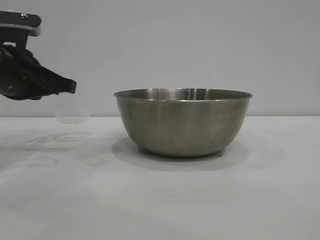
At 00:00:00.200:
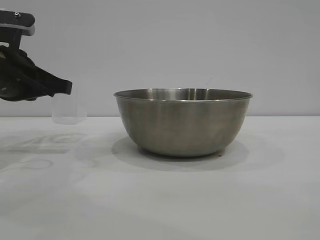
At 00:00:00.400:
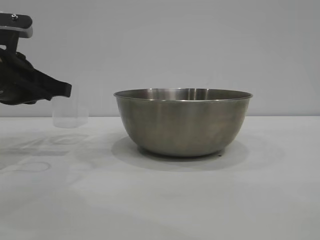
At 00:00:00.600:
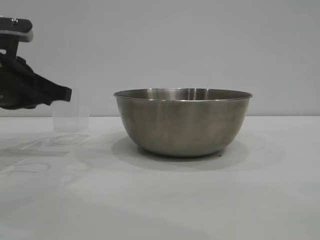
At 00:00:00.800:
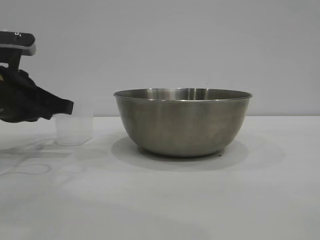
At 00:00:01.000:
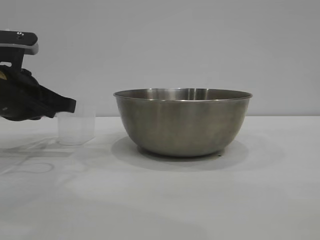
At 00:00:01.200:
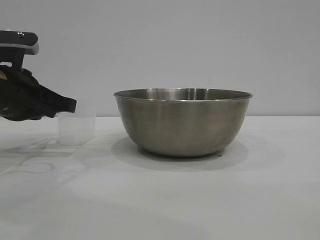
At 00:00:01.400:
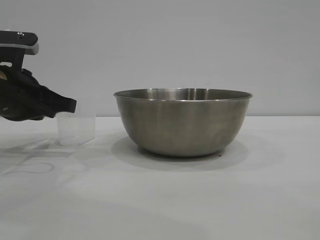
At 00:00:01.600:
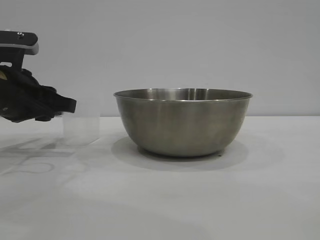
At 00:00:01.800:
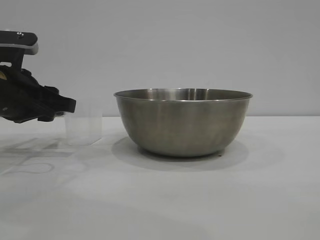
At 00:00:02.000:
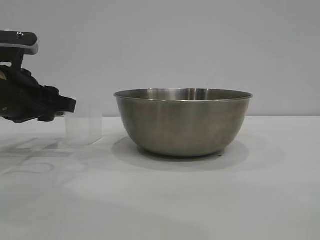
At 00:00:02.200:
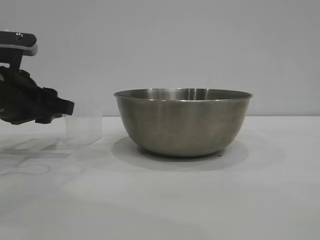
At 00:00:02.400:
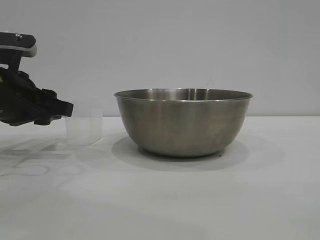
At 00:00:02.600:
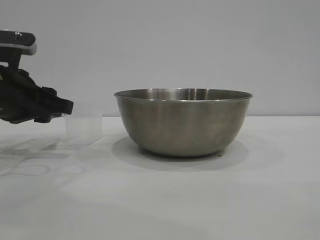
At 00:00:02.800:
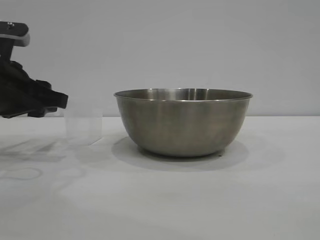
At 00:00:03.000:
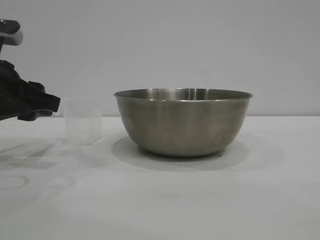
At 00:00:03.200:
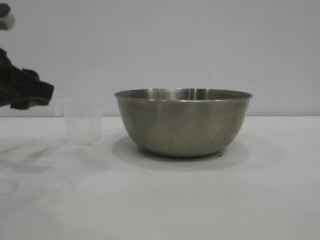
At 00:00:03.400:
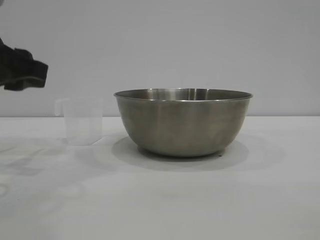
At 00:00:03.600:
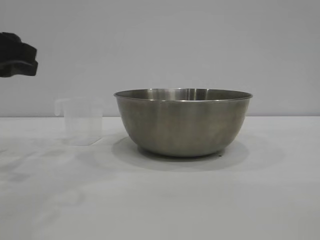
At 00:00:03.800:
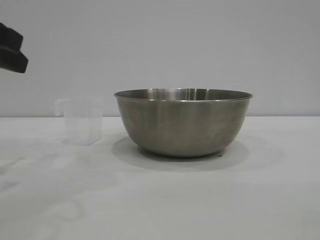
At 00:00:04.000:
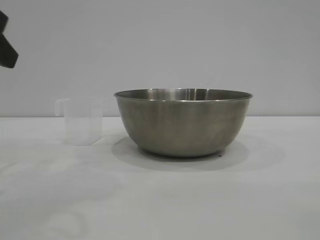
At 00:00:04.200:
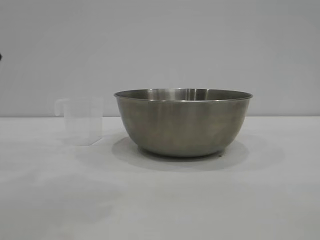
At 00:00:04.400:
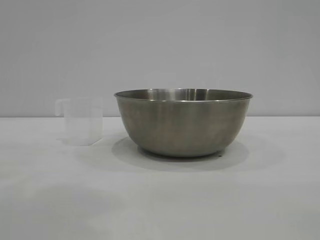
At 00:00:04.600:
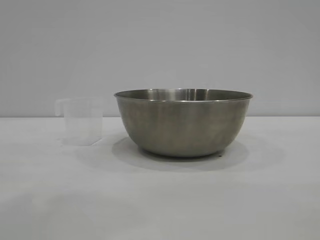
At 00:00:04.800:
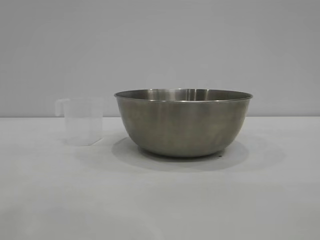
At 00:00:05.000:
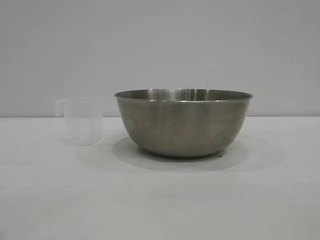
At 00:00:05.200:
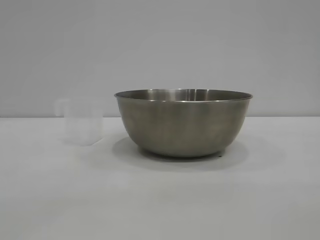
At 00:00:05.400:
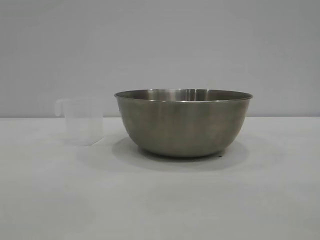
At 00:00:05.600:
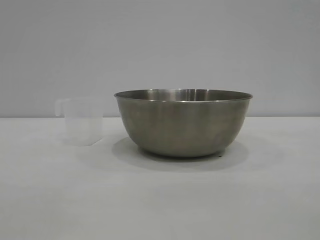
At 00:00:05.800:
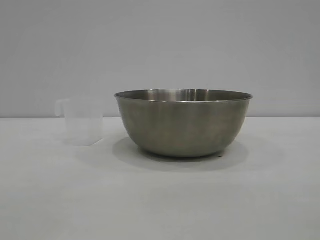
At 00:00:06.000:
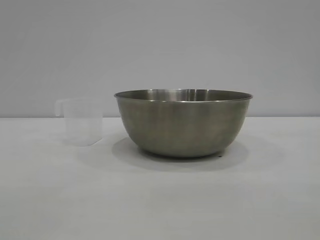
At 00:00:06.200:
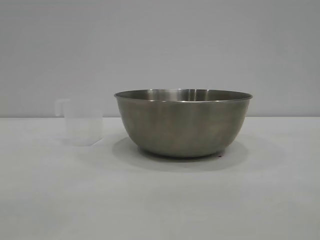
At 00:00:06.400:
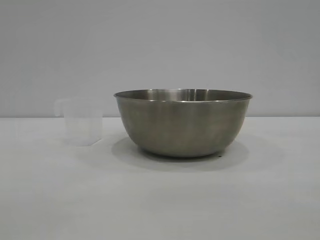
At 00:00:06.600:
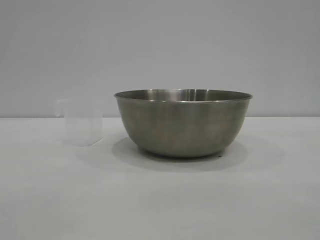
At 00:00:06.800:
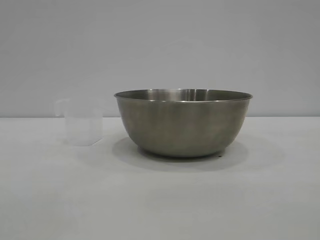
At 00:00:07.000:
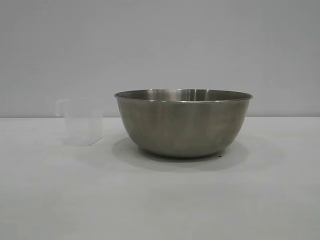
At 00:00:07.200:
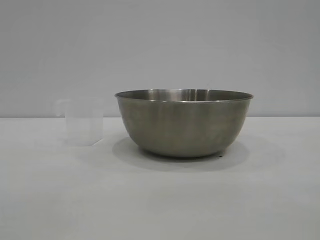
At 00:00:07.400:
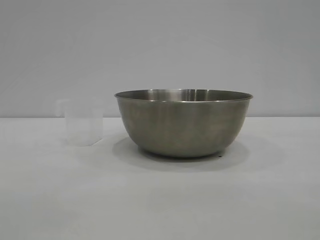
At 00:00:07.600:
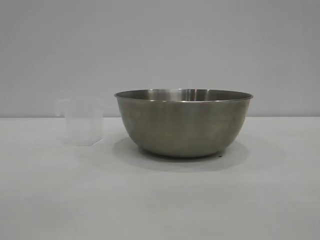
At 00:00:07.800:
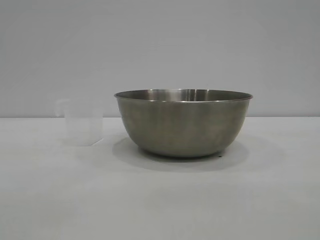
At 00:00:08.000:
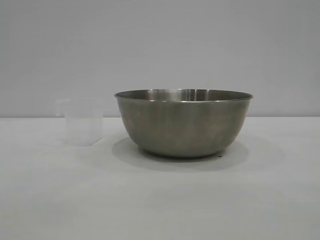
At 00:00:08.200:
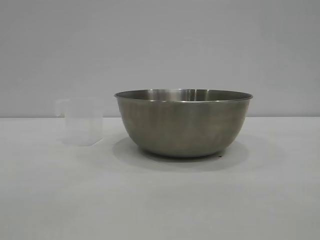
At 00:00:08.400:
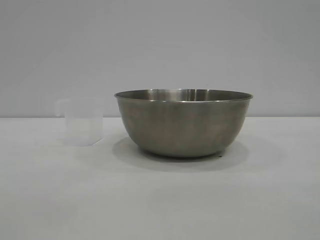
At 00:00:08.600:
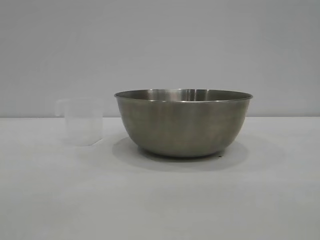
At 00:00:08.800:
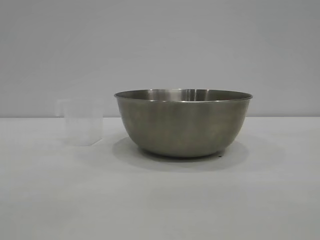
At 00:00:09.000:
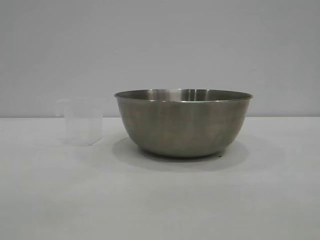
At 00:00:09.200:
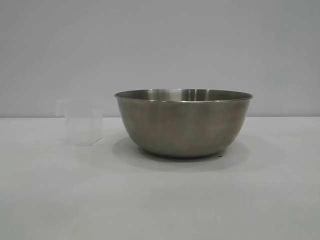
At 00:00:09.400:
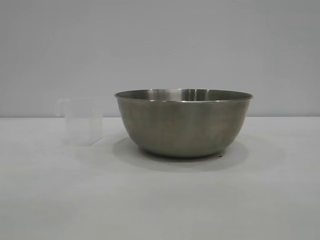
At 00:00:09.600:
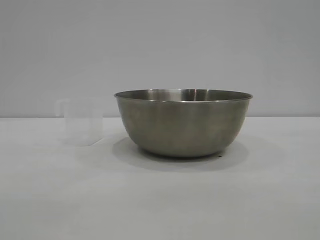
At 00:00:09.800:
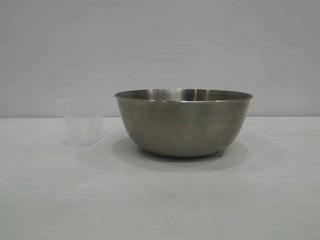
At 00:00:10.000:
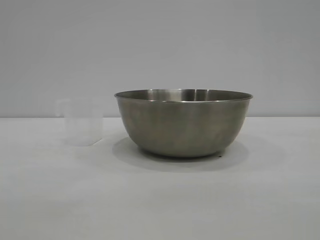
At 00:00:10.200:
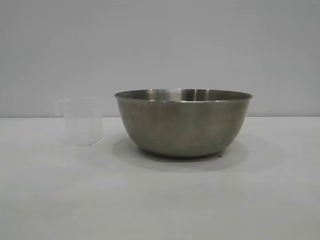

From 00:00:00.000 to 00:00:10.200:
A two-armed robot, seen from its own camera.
Task of the whole recording: the right gripper grasp the rice container and place it in the center of the table, the left gripper grasp the rice scoop and pour the rice into the rice container.
Step, from 00:00:00.000 to 00:00:03.000: Place the cup on the table with the left gripper.

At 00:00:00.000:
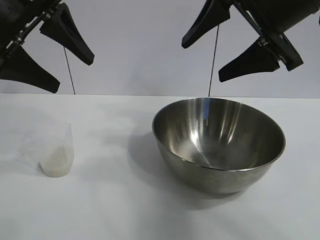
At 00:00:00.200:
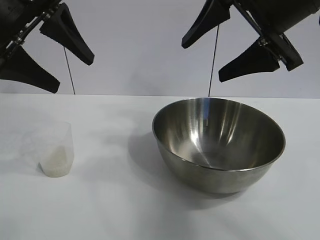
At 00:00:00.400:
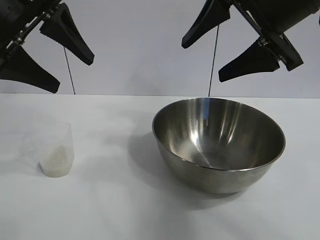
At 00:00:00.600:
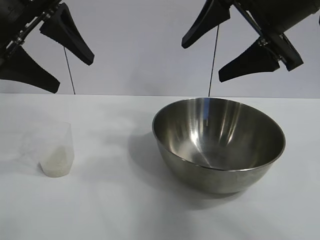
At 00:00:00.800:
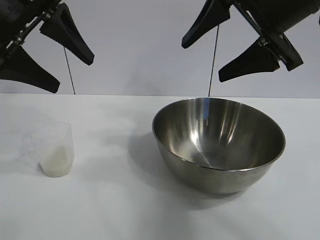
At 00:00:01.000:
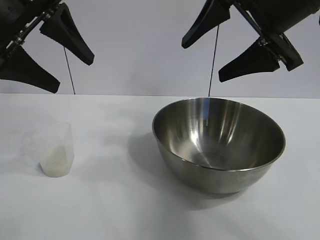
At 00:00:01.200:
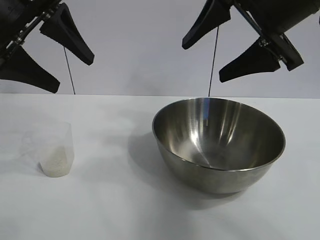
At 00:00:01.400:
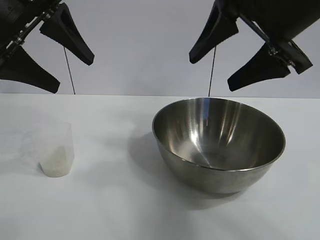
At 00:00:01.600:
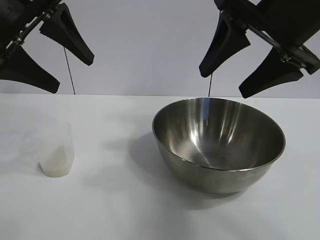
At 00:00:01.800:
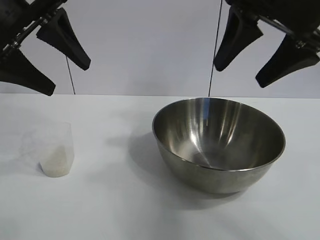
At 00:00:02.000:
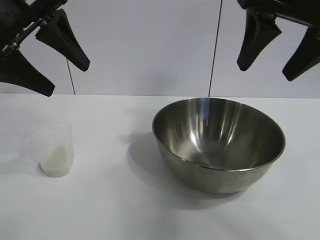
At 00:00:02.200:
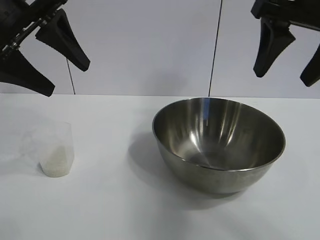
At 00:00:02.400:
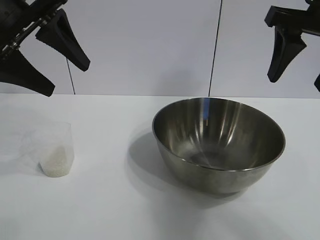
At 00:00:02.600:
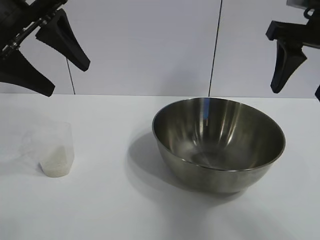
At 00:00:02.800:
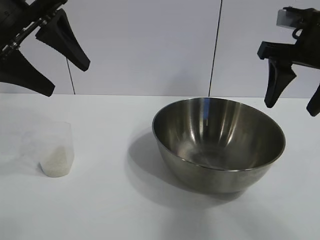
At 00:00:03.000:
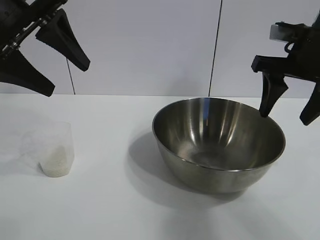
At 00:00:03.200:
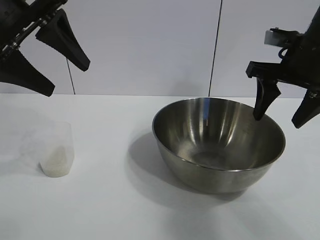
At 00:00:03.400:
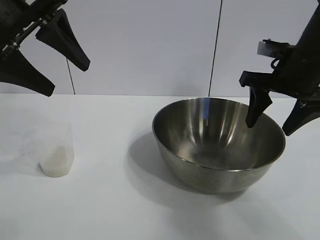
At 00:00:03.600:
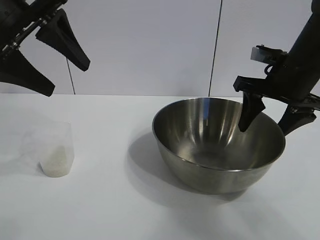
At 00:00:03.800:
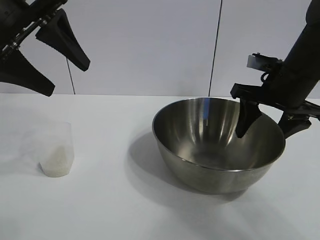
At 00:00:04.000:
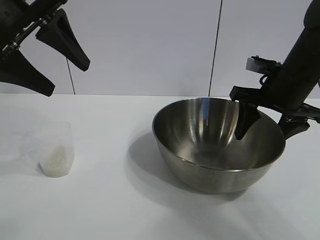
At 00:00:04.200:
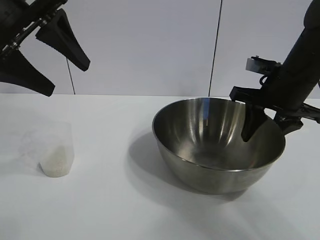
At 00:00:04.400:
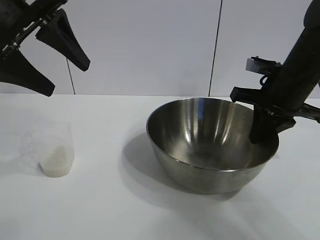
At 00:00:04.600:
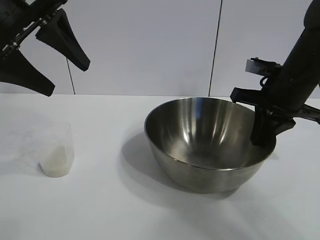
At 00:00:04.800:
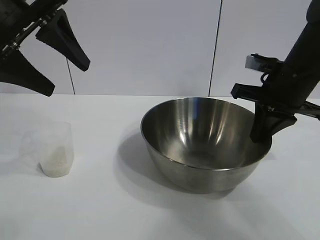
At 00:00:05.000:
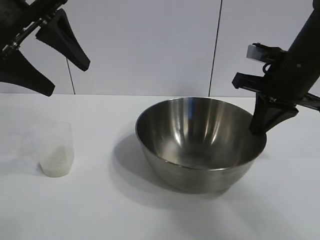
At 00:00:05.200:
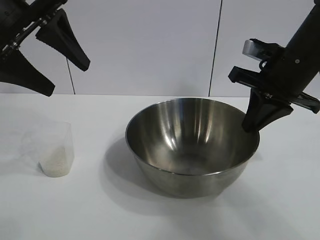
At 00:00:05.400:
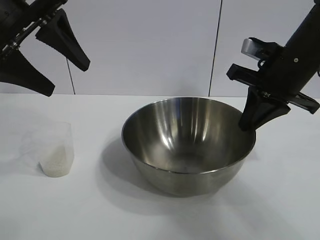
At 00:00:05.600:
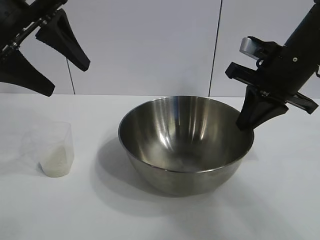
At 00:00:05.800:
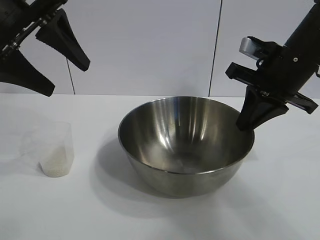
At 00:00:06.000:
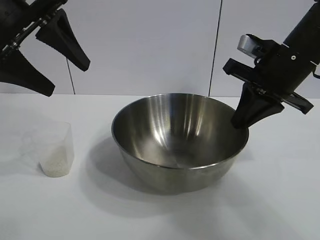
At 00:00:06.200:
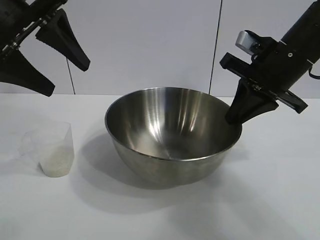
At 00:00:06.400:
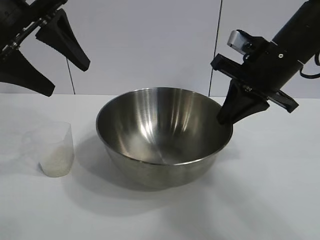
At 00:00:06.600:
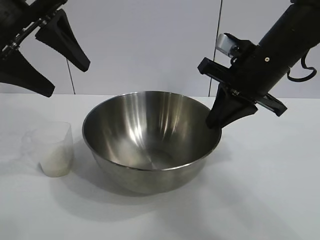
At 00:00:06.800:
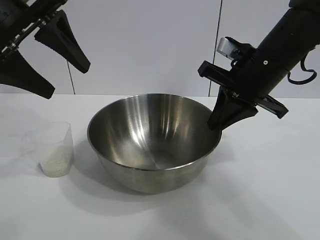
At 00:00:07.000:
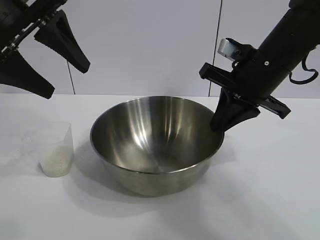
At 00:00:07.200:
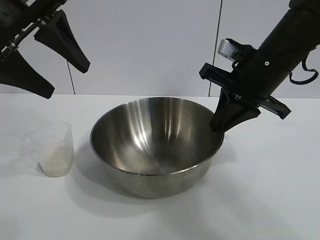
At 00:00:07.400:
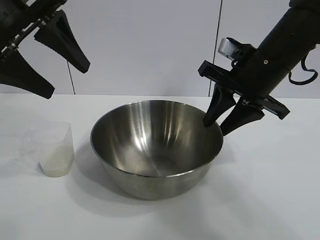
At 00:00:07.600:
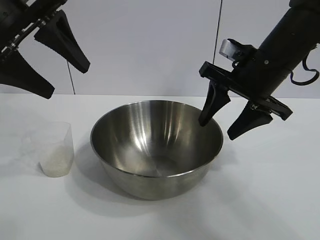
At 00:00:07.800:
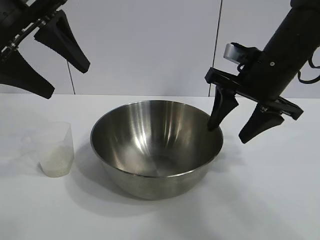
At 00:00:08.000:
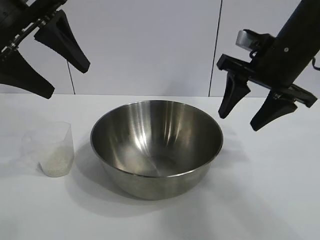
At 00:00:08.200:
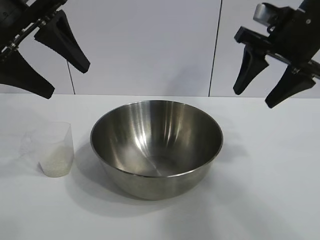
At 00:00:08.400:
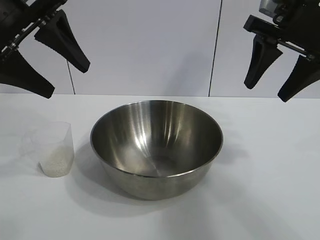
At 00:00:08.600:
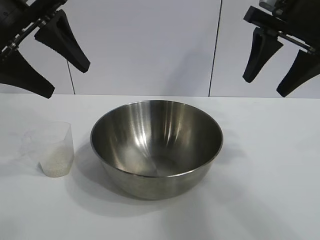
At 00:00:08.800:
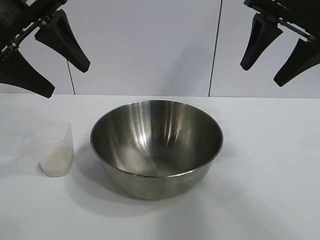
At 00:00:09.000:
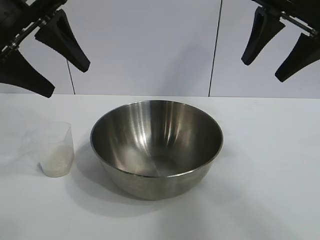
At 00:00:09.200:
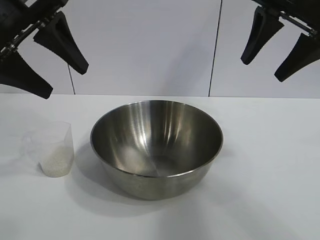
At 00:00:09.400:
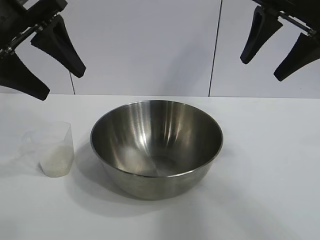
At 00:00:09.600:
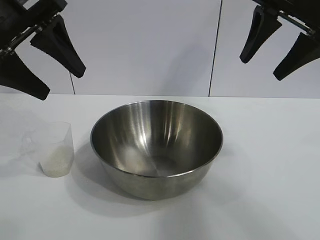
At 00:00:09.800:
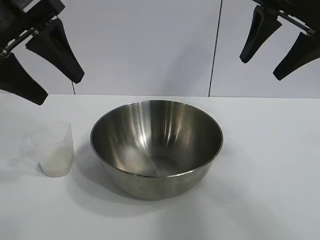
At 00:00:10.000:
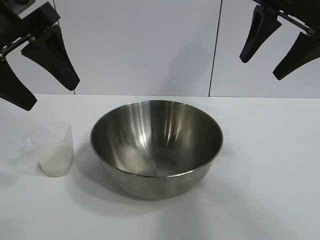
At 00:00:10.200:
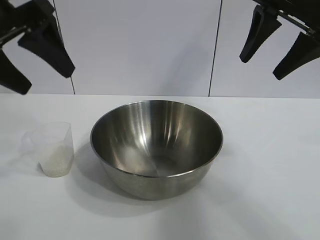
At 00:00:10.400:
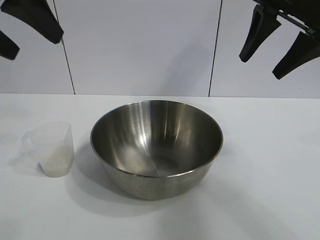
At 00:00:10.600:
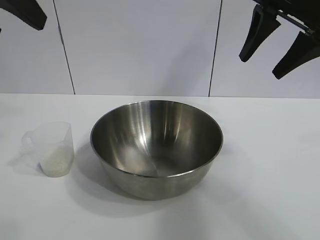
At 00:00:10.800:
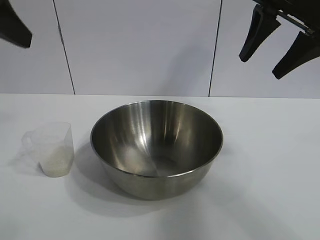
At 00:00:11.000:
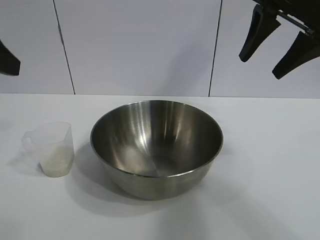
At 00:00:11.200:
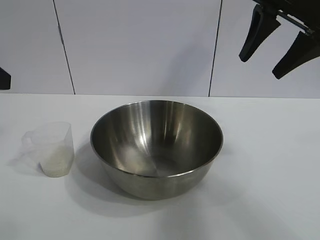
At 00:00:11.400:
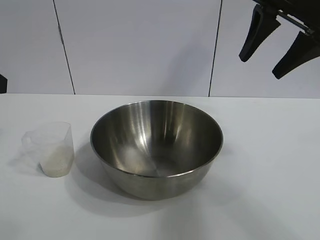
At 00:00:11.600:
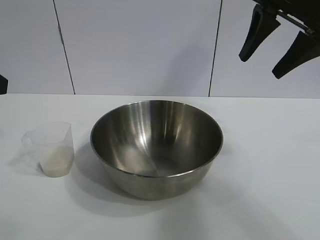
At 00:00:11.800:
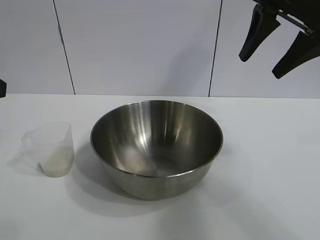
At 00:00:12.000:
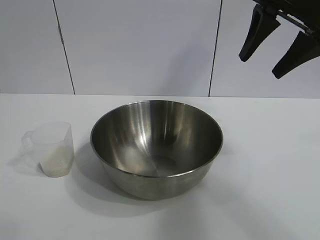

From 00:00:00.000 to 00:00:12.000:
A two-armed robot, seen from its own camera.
Task of the whole recording: the right gripper grasp the rice container and place it in the center of the table, the left gripper grasp the rice scoop and pour the rice into the rice container.
Step, from 00:00:01.200 to 00:00:07.600: Move the bowl in the center of view with right gripper.
